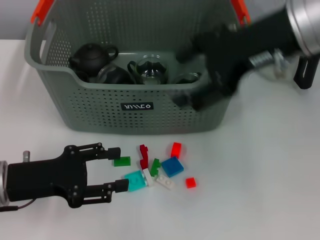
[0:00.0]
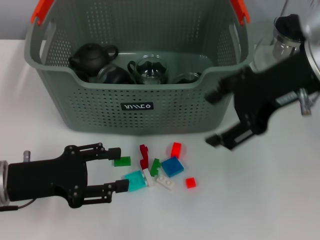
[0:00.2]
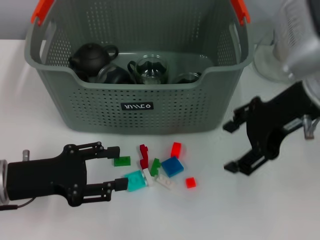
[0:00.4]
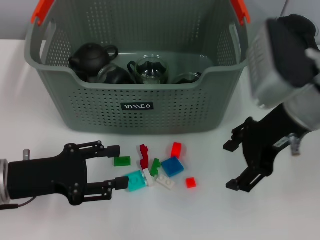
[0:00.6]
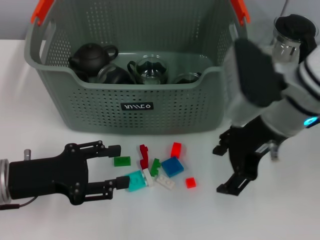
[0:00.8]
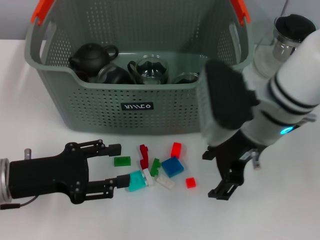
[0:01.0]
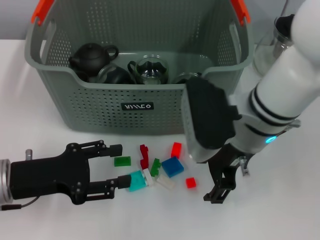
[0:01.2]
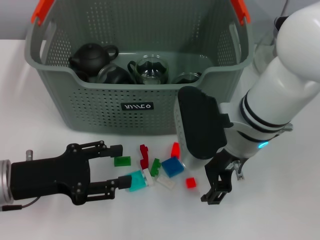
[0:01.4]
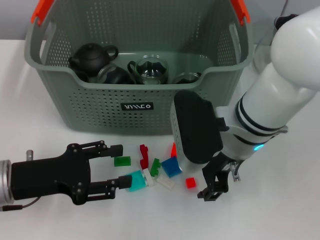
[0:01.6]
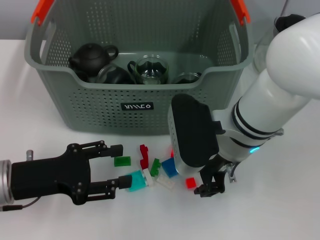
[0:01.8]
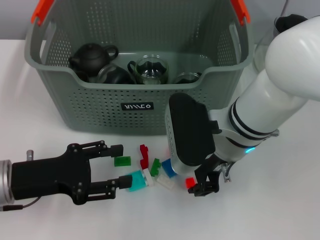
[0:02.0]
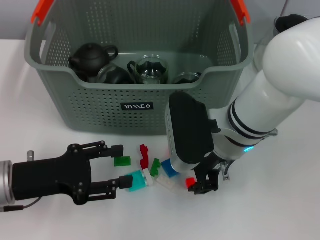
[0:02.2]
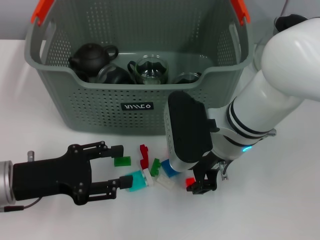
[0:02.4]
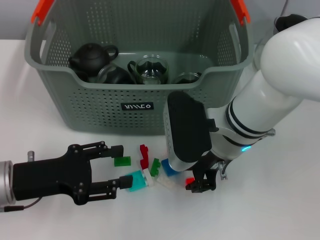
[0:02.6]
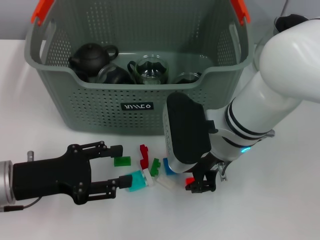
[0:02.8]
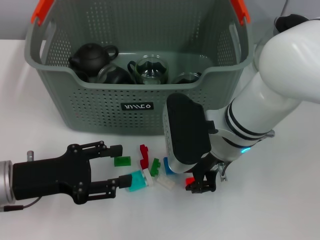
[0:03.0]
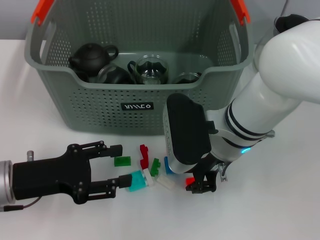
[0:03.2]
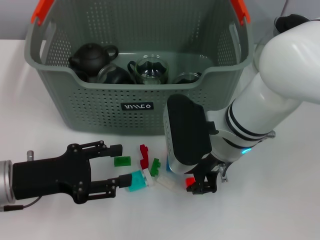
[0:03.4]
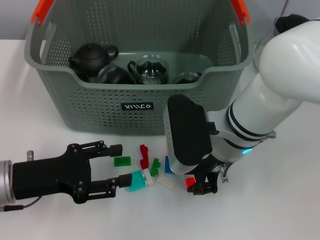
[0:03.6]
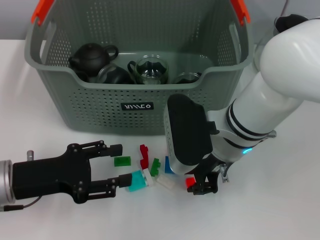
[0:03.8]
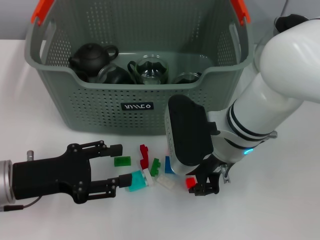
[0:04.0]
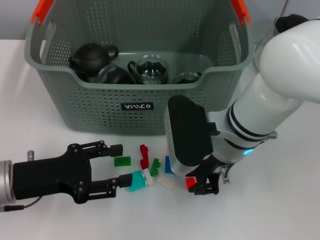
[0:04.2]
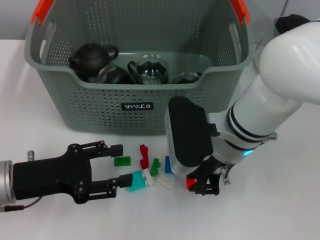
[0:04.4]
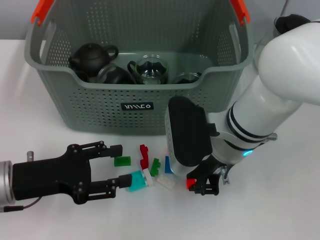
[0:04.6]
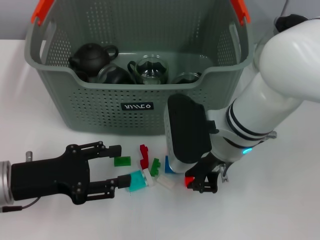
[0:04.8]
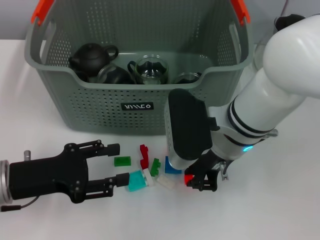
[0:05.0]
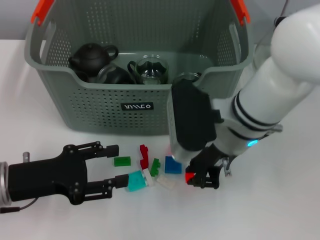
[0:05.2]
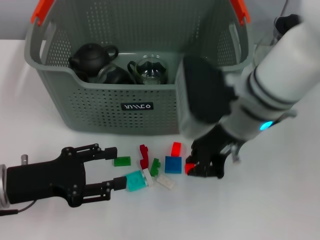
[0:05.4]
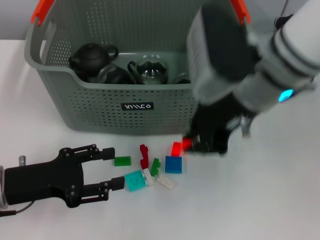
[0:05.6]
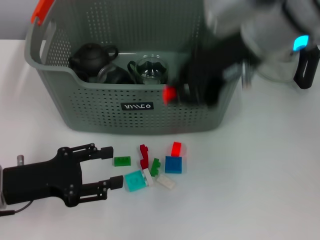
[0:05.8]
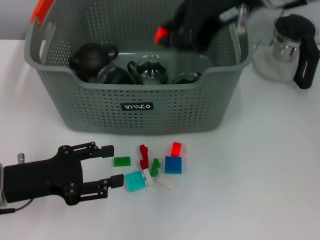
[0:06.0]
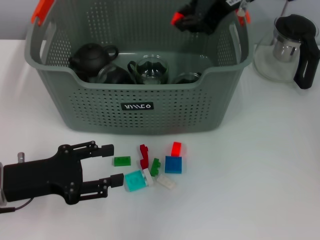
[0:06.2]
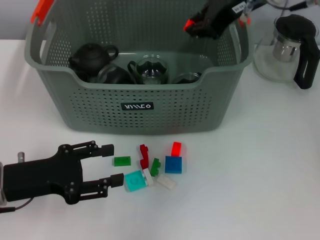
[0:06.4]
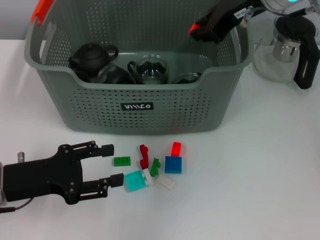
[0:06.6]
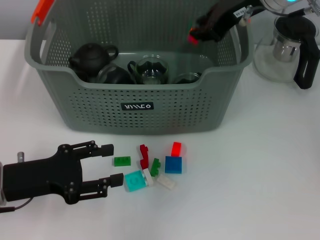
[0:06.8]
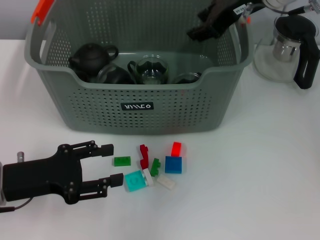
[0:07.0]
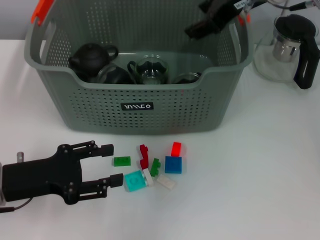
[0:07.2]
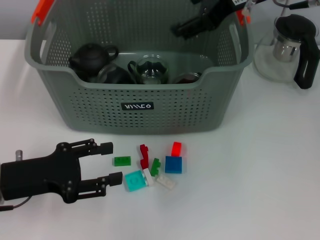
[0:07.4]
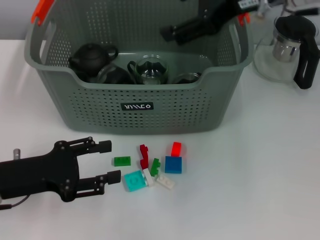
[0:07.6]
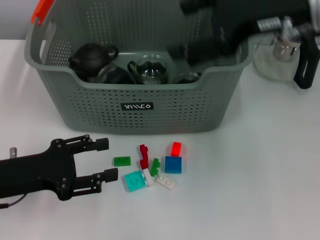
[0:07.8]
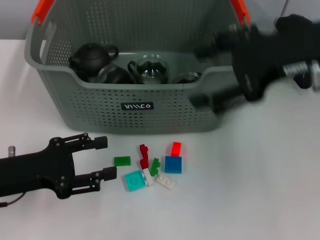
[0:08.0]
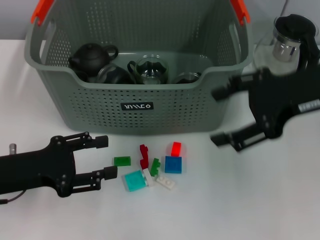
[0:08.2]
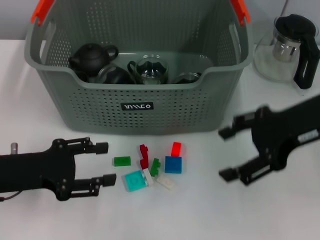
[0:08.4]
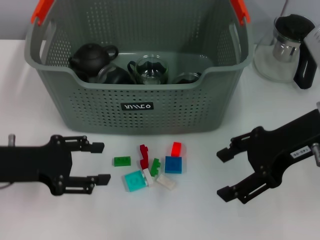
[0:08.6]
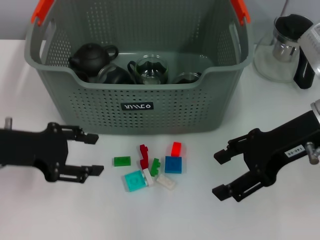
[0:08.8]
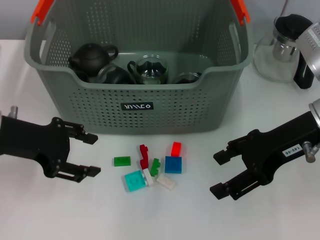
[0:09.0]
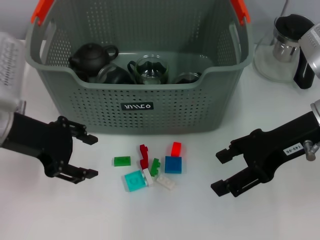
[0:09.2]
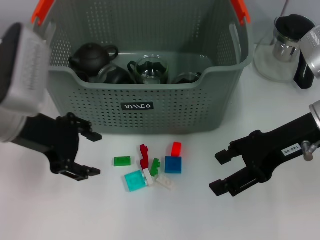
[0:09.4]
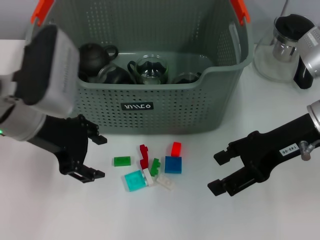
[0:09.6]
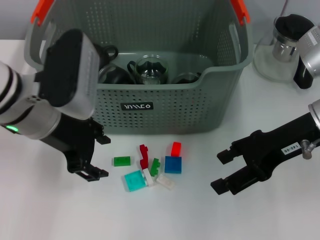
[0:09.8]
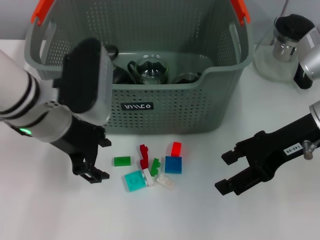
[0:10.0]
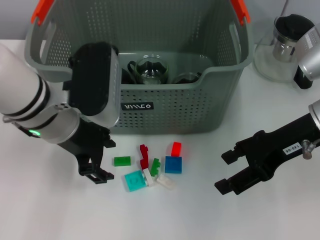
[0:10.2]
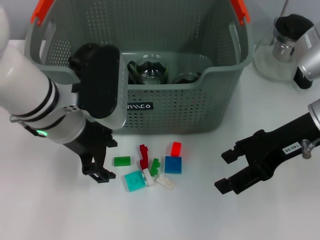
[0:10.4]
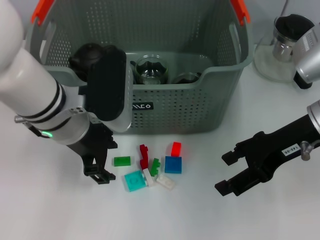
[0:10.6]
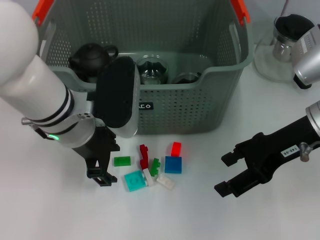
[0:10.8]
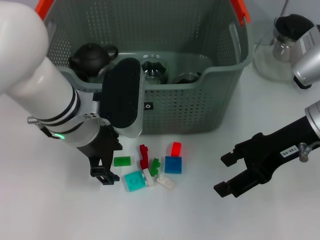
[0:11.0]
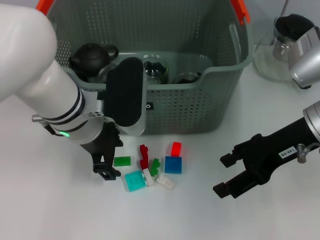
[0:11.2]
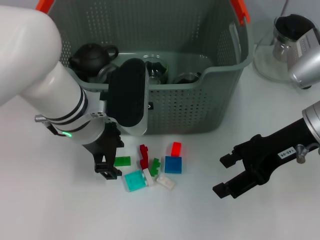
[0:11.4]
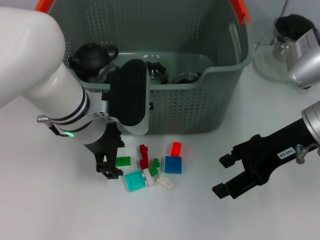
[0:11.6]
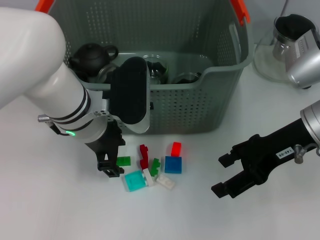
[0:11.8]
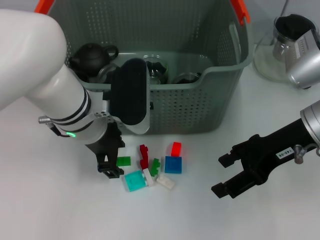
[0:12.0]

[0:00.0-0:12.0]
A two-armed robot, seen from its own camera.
Task of the whole recording: pick up the teacup on the table and place it into the storage bin, pick up the block on the table and place it into the storage bin.
Step, 0:00.0 to 0:04.4: Grasp the orange block with right gripper.
Step, 0:04.6 to 0:06.8: Place the orange block in the storage box with right gripper.
0:00.0 to 0:01.6: The right gripper moves downward and to the left, approximately 15 cm.
0:01.6 to 0:03.0: The right gripper closes up.
0:03.0 to 0:04.4: Both grippers stay about where they are.
0:04.4 to 0:06.0: The right gripper is displaced upward by roughly 20 cm.
0:06.0 to 0:07.6: The right gripper opens.
0:07.6 to 0:09.0: The right gripper travels downward, backward and to the right by approximately 15 cm; the left gripper shifts approximately 10 cm upward and forward.
0:09.0 to 0:10.4: The left gripper moves to the right, roughly 10 cm.
0:10.4 to 0:12.0: The grippers move only a little.

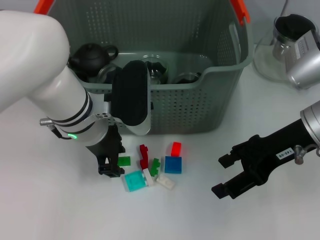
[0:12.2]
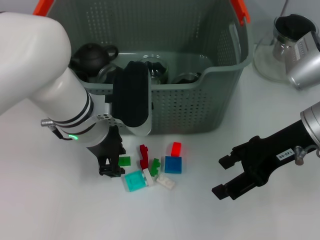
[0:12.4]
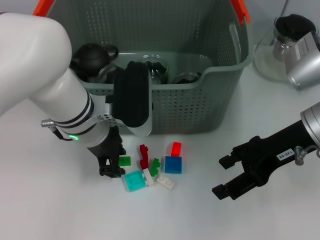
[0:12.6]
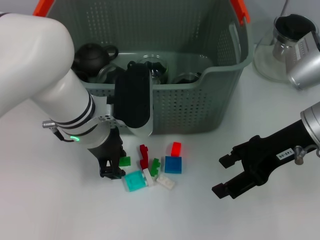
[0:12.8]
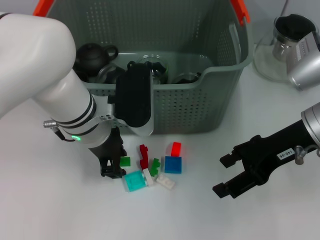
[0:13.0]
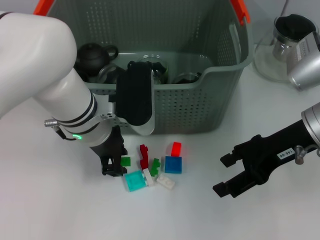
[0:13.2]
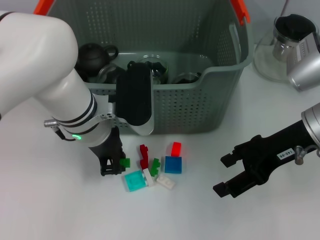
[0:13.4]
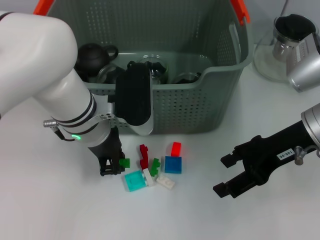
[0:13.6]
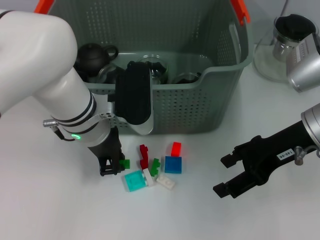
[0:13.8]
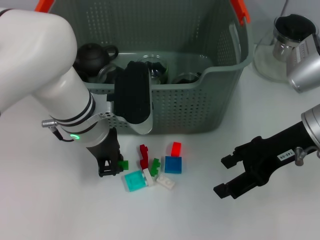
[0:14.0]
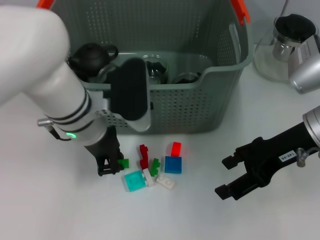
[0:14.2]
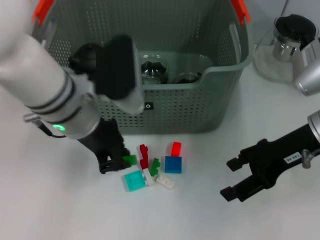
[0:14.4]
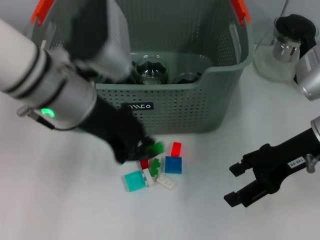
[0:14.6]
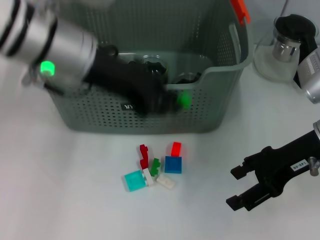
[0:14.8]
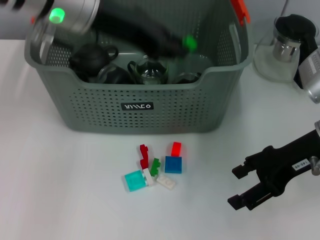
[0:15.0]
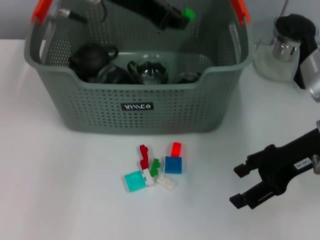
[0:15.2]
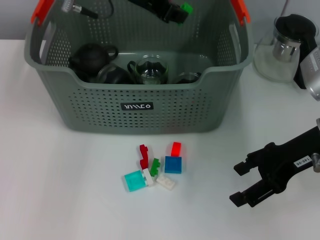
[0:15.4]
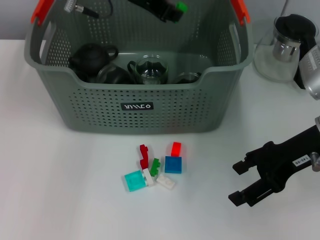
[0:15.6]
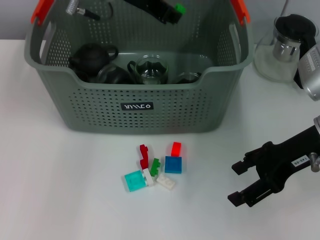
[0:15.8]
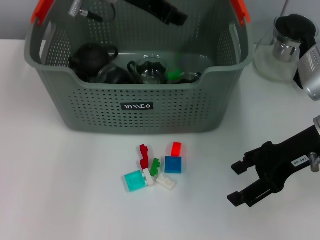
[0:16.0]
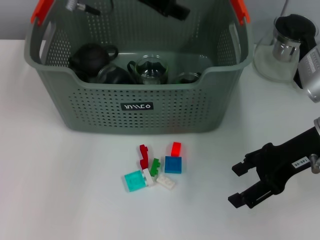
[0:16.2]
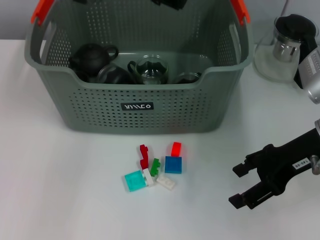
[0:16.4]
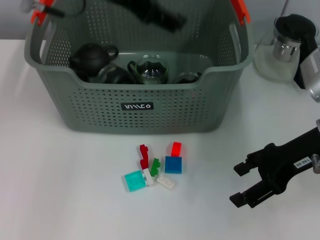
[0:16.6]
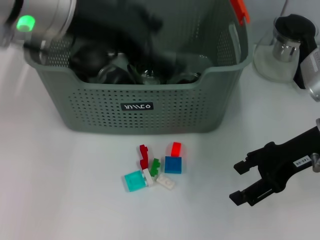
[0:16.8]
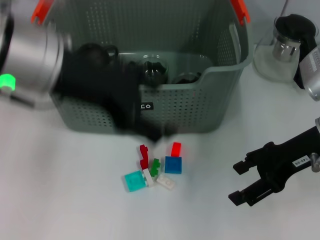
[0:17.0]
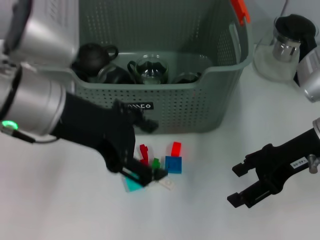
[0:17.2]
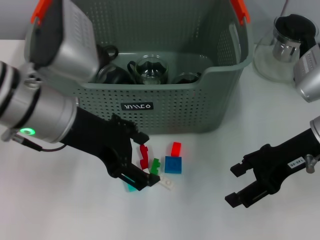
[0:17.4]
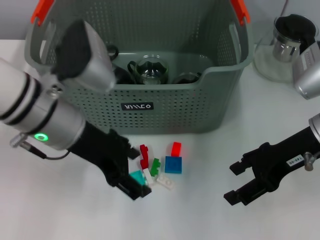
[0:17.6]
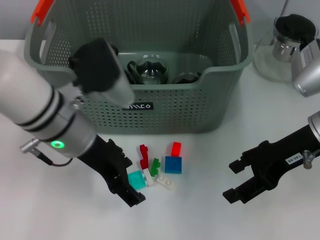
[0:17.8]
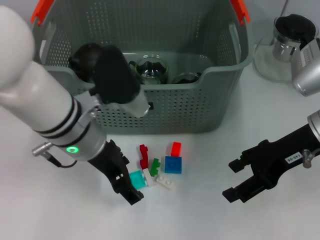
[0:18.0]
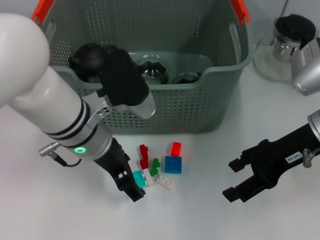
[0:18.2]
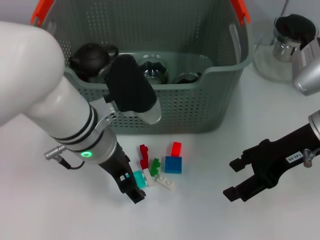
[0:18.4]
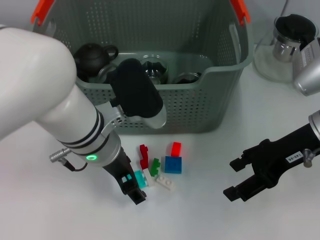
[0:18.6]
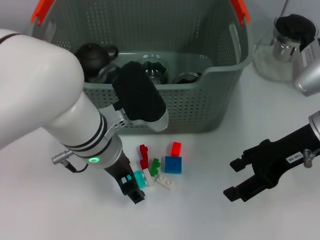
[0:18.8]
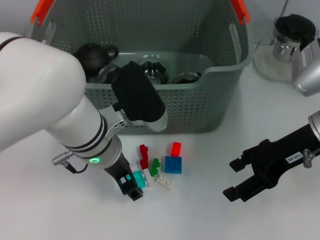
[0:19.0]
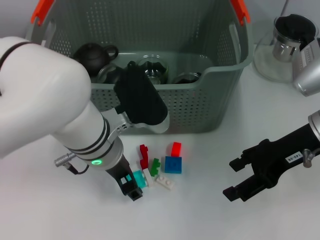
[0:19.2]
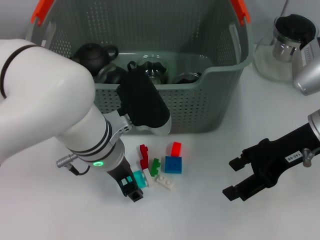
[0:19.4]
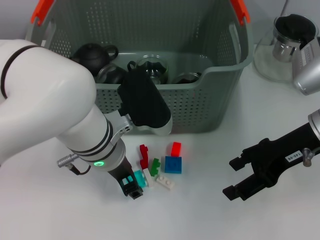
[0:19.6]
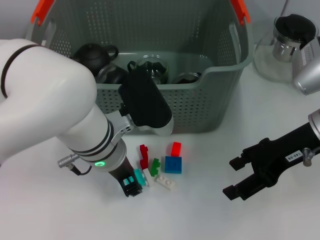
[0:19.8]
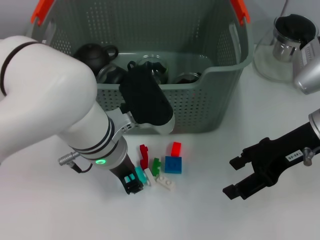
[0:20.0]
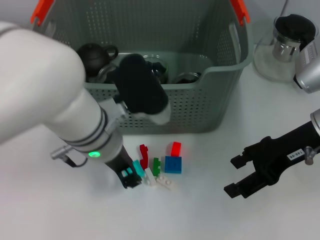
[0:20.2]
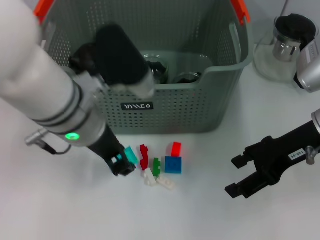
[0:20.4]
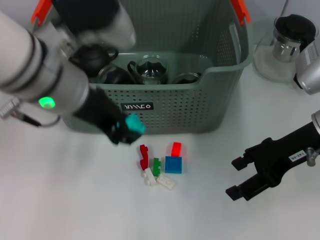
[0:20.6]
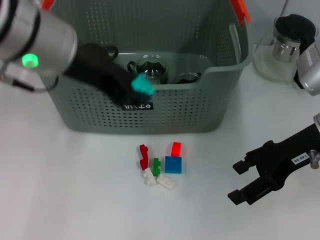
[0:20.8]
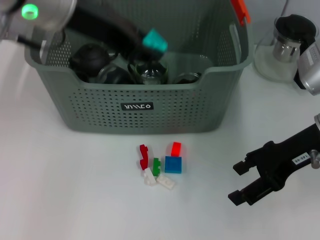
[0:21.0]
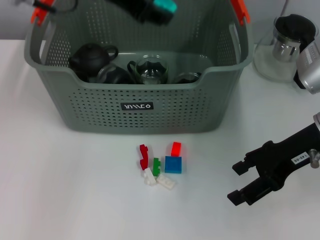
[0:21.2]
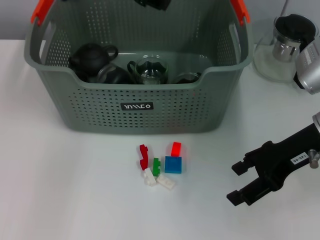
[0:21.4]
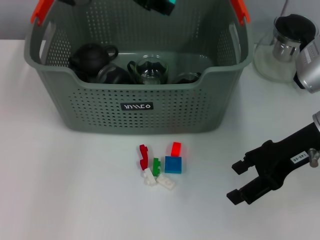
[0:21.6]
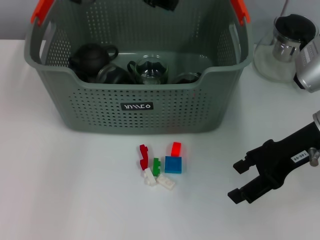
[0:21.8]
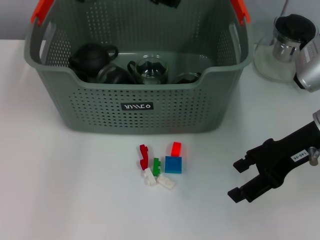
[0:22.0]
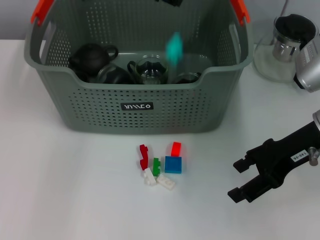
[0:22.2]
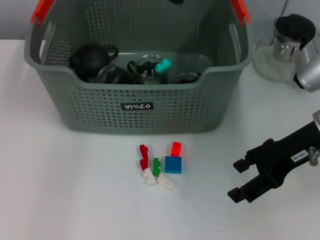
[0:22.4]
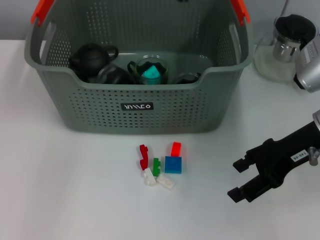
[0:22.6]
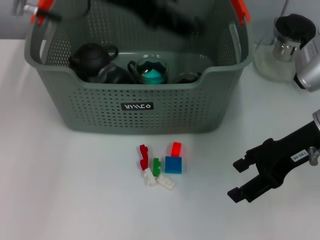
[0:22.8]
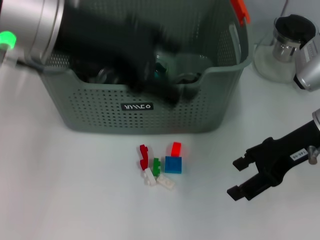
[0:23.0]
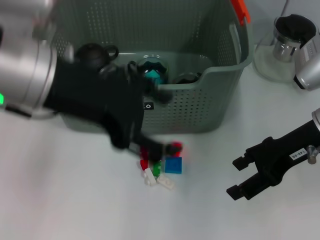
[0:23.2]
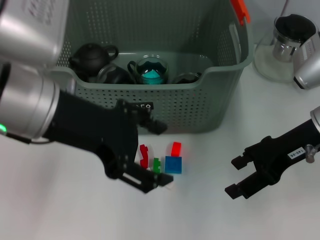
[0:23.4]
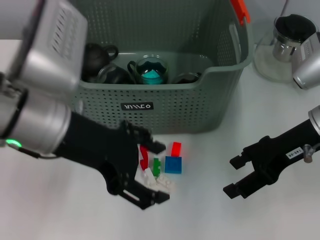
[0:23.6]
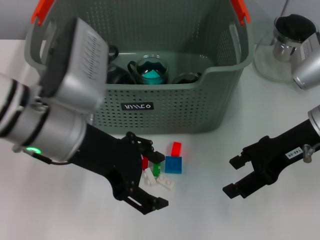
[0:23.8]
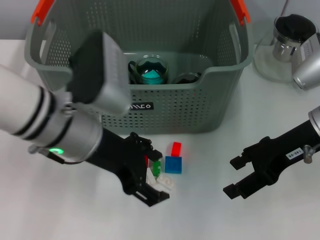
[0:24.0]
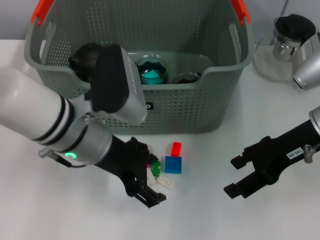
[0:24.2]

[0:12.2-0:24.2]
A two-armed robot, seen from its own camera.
Task of the whole recording: pick up the teacup on the table and place it into the storage bin, pick up the block on the table and place it into the storage bin.
Step, 0:13.6 to 0:15.8: Place the green block in the storage box with left gripper.
Step, 0:16.0 to 0:19.8: Grasp the light blue block with left gripper.
Step, 0:20.0 to 0:22.0: Place the light blue block in the storage box with left gripper.
0:12.2 to 0:13.8: The left gripper closes up.
0:13.8 to 0:15.2: The left gripper moves upward and forward, roughly 15 cm.
0:15.2 to 0:16.6: The left gripper shifts by some 5 cm, and opens up.
0:16.6 to 0:18.2: The left gripper heads downward, covering about 15 cm.
0:18.2 to 0:19.8: The grippers make only small movements.
0:19.8 to 0:21.2: The left gripper moves upward, approximately 20 cm.
0:22.6 to 0:24.2: The left gripper moves downward and backward, roughly 20 cm.
